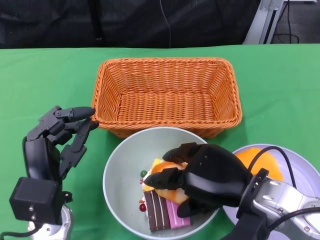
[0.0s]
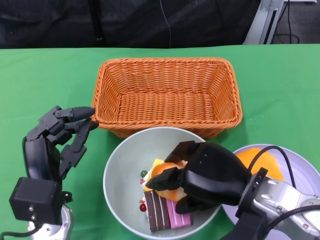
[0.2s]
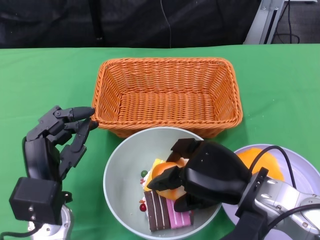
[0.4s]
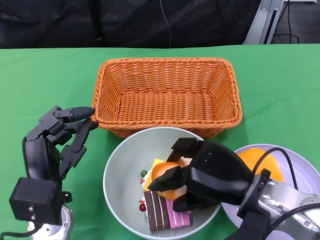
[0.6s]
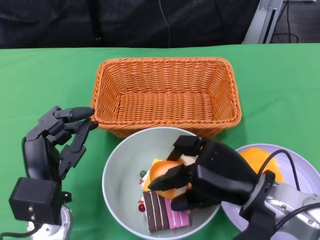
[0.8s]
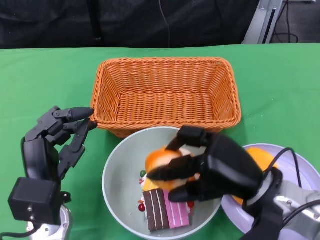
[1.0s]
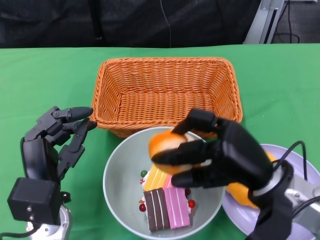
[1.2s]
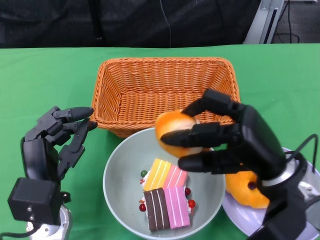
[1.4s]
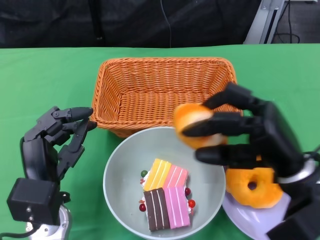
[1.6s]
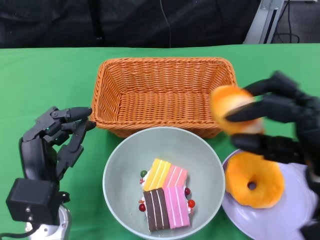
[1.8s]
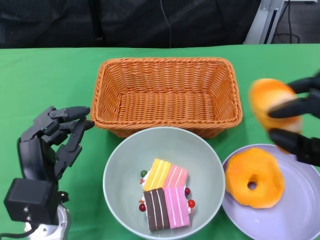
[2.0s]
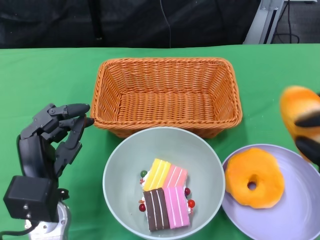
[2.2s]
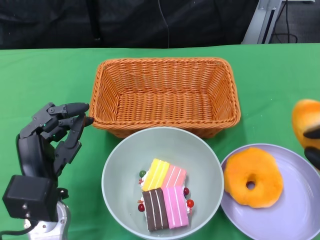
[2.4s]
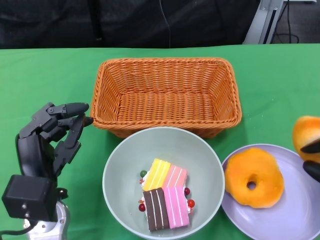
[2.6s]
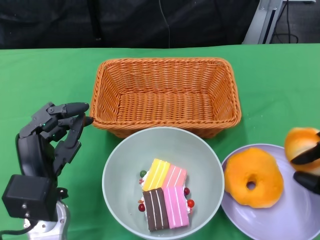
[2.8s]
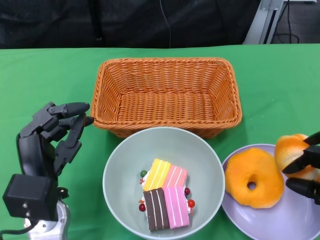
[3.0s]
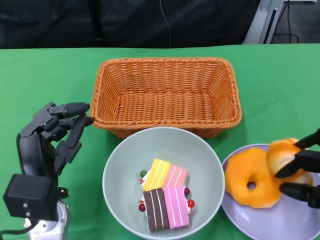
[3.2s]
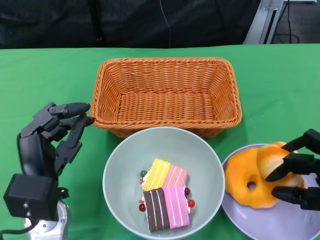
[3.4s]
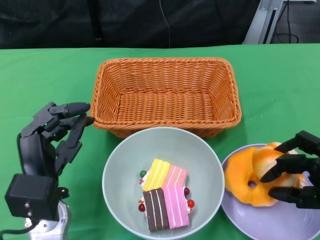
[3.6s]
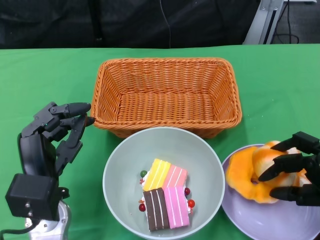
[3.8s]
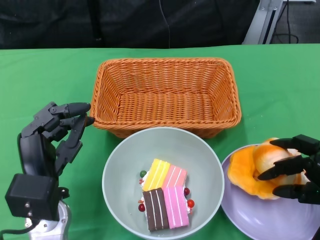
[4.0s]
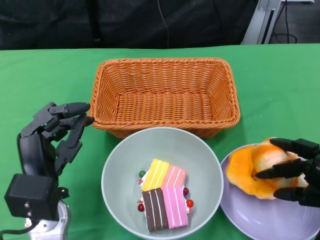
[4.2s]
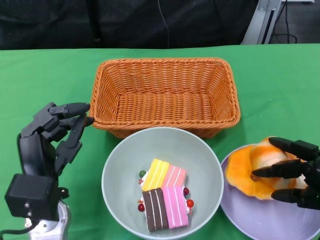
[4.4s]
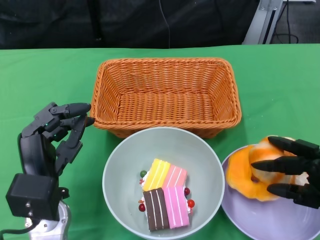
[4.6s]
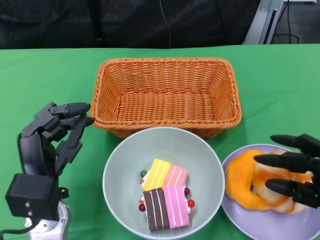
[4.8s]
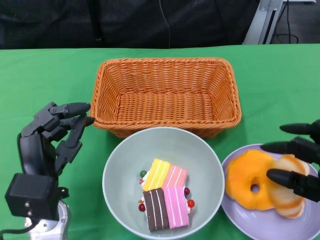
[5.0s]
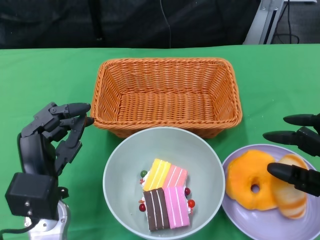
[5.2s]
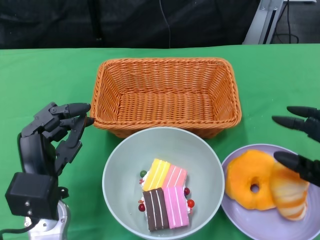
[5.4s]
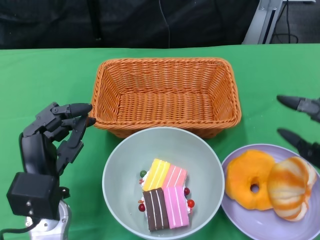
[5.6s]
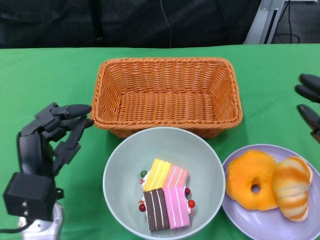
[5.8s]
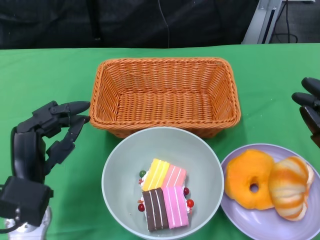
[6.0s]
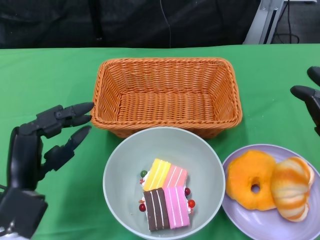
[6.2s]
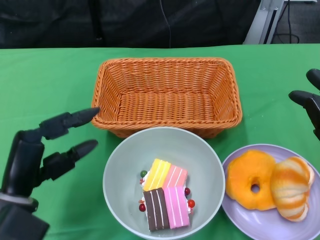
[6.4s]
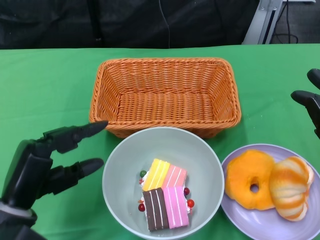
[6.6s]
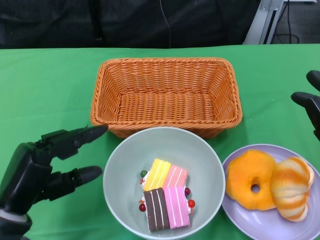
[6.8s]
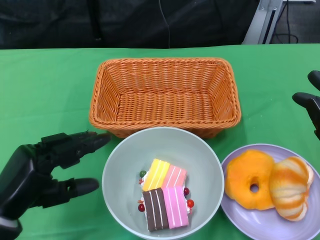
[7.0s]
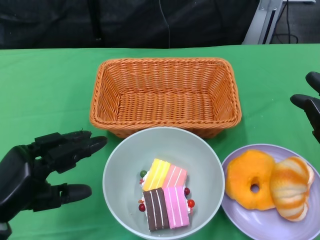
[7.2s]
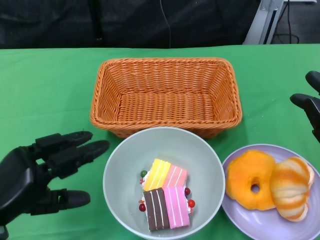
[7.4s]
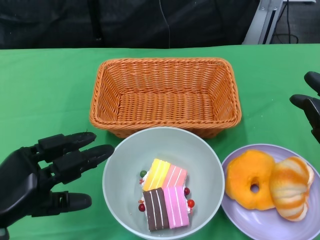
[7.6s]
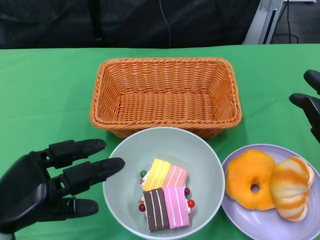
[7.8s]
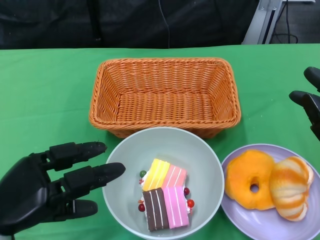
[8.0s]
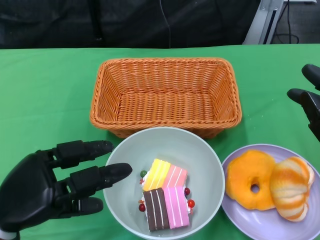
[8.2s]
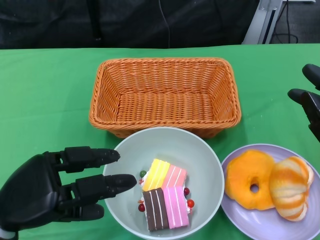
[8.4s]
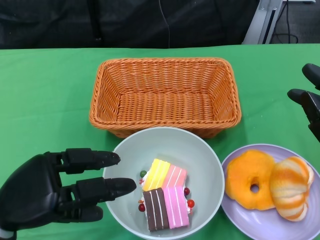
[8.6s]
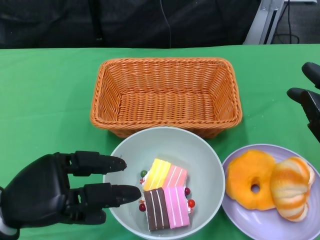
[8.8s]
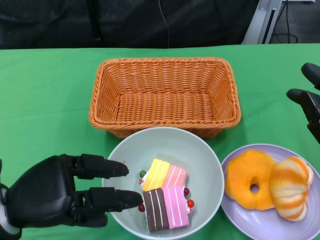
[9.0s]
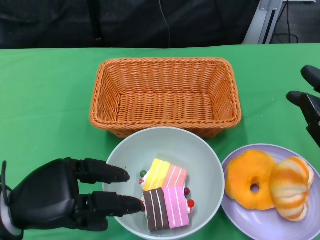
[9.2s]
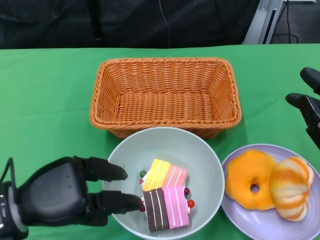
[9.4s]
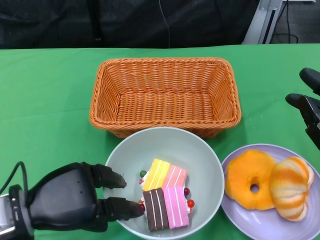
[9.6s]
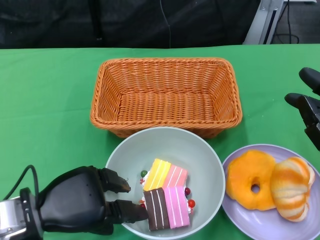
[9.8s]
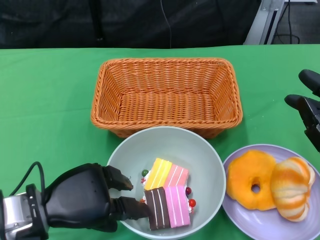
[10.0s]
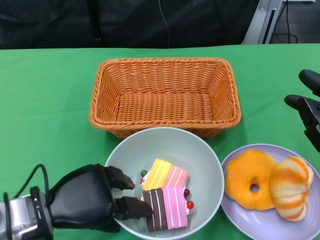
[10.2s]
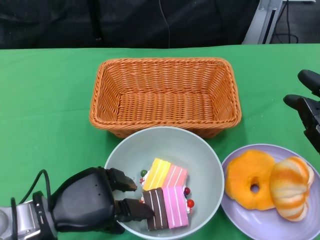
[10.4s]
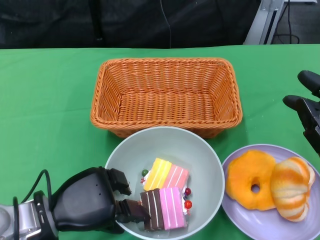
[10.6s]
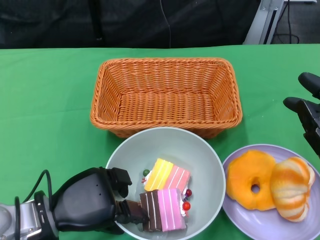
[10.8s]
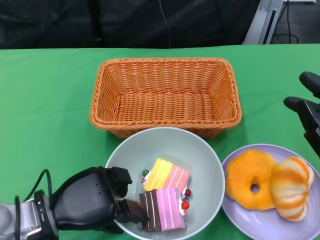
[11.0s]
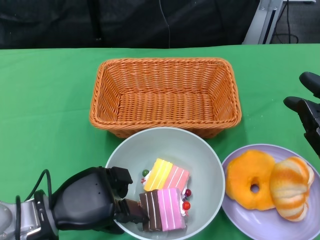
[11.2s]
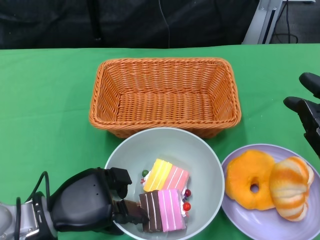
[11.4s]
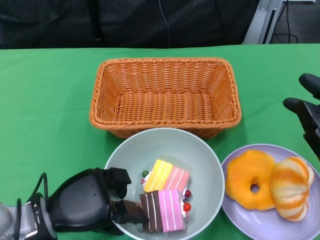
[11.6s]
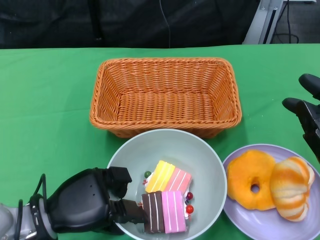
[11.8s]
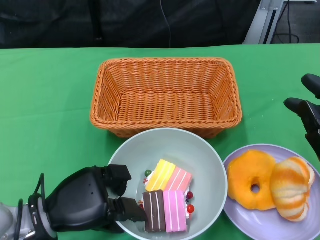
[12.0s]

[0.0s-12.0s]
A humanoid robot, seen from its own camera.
Step, 0.0s to 6.4s: Pick up the bread with the right gripper and place it on the plate.
Step, 6.6s to 11.8s: Grasp the bowl with the left gripper.
1.6s to 3.0s: The right hand shifts approximately 15 cm to the right and downward.
6.0s to 7.6s: The left hand moves to the left, some 5 cm.
9.0s to 10.4s: The left hand shifts by roughly 5 cm.
10.4s to 12.0s: The hands stay close to where they were, moving slightly.

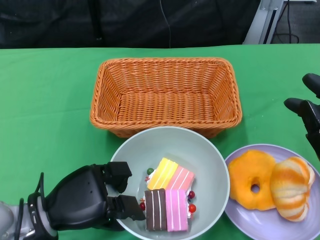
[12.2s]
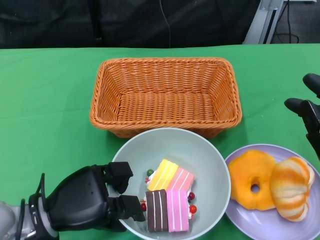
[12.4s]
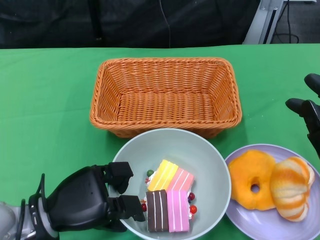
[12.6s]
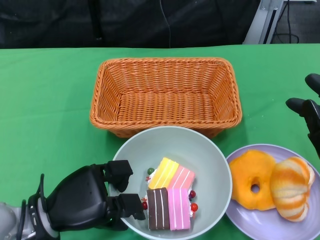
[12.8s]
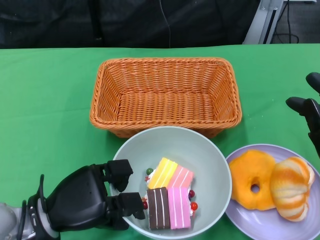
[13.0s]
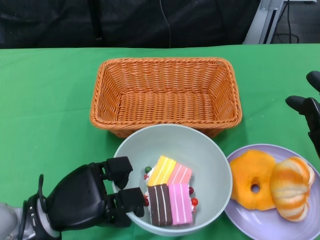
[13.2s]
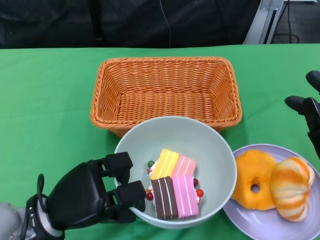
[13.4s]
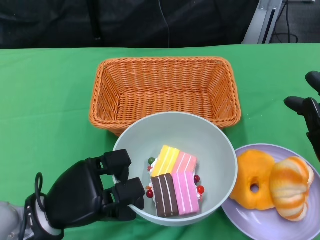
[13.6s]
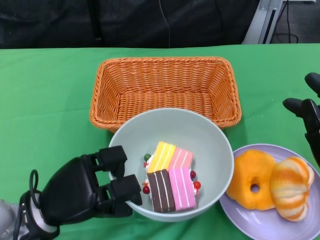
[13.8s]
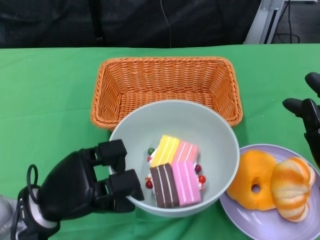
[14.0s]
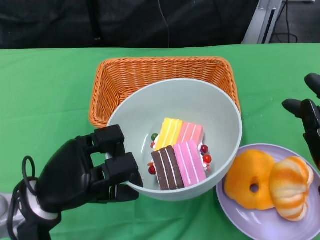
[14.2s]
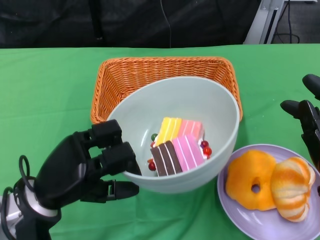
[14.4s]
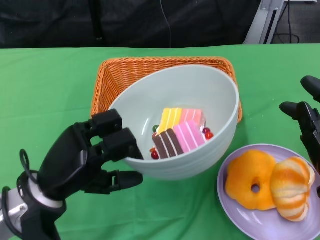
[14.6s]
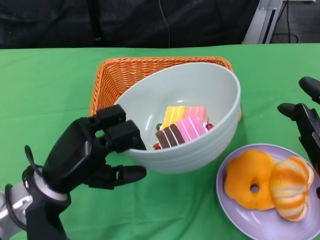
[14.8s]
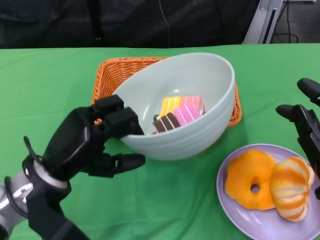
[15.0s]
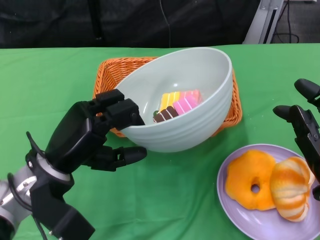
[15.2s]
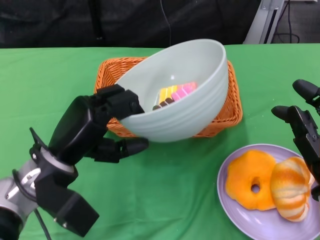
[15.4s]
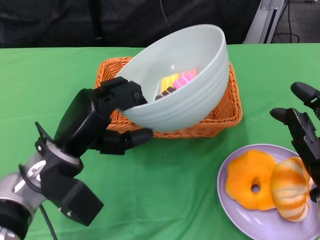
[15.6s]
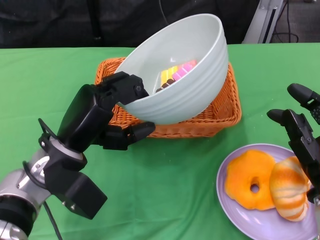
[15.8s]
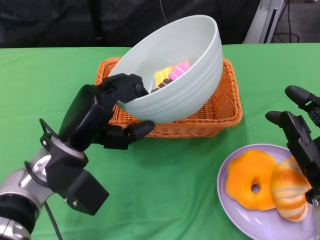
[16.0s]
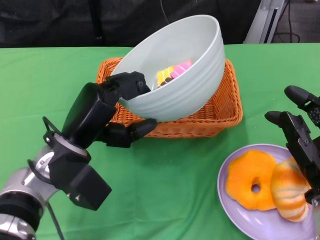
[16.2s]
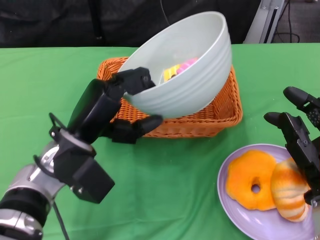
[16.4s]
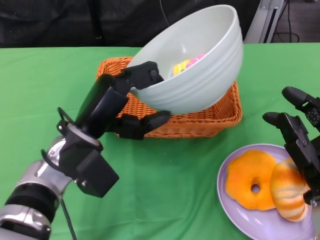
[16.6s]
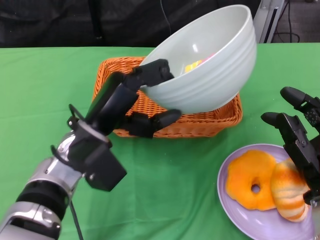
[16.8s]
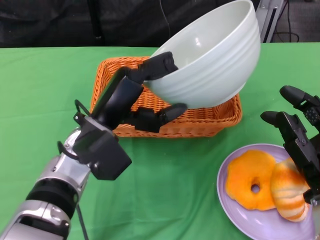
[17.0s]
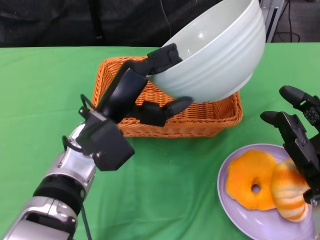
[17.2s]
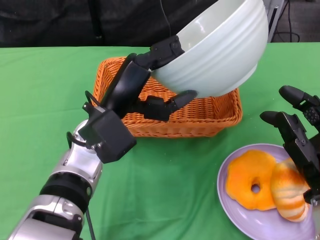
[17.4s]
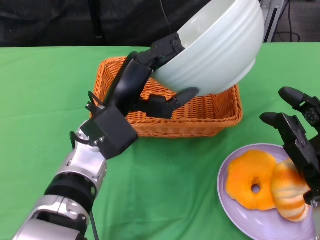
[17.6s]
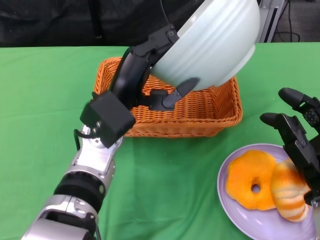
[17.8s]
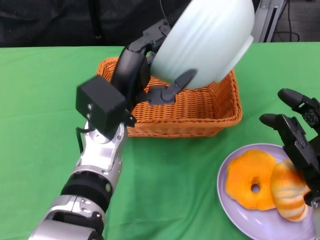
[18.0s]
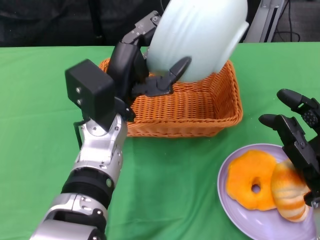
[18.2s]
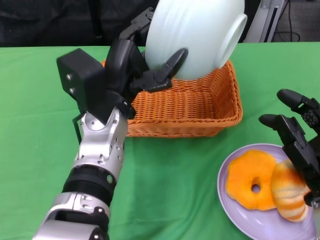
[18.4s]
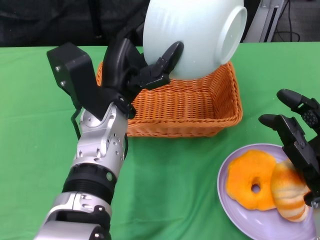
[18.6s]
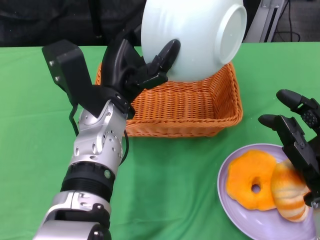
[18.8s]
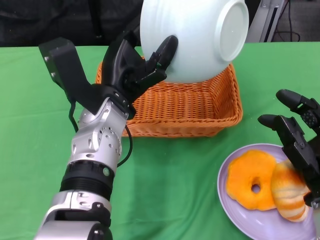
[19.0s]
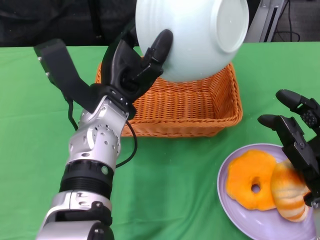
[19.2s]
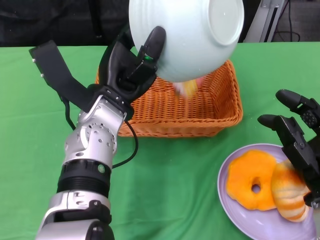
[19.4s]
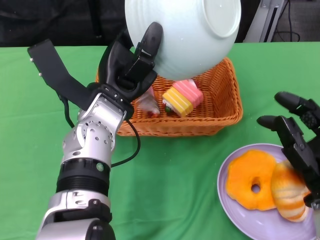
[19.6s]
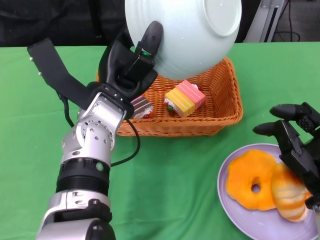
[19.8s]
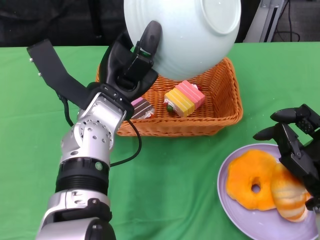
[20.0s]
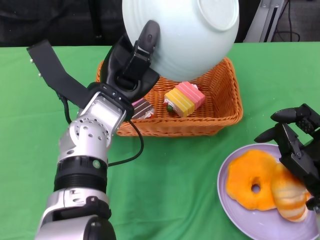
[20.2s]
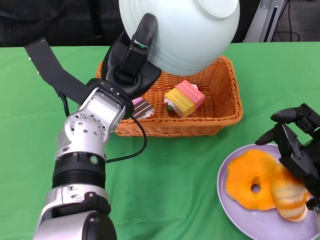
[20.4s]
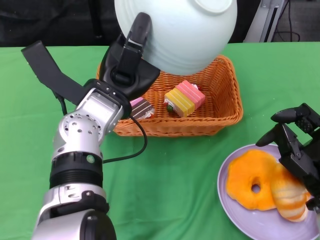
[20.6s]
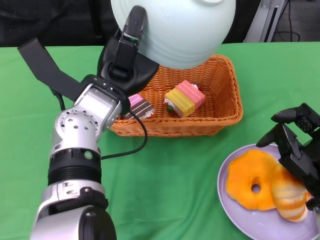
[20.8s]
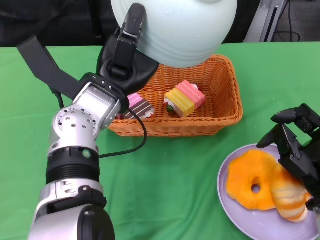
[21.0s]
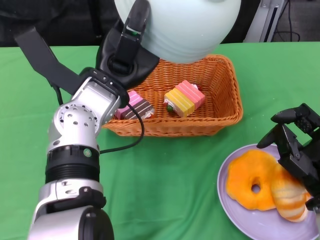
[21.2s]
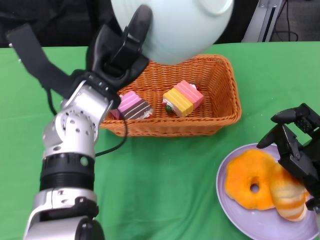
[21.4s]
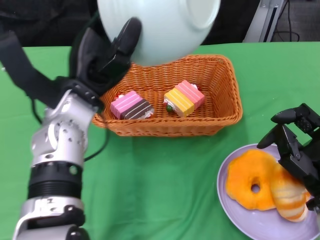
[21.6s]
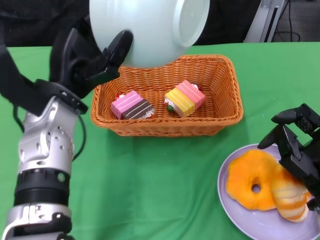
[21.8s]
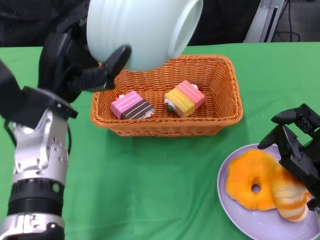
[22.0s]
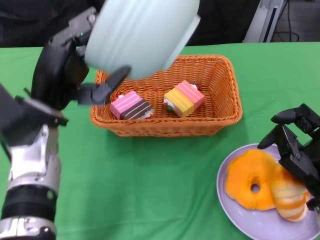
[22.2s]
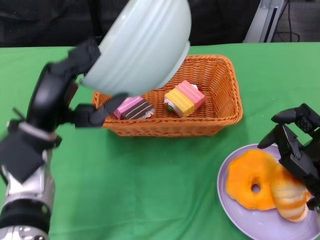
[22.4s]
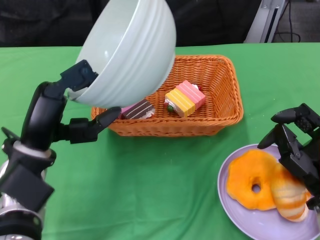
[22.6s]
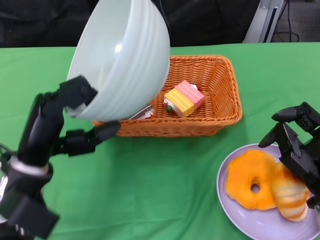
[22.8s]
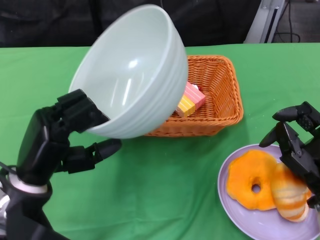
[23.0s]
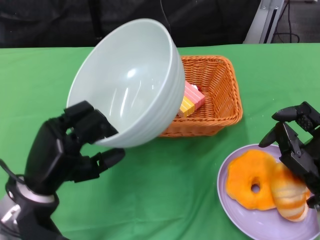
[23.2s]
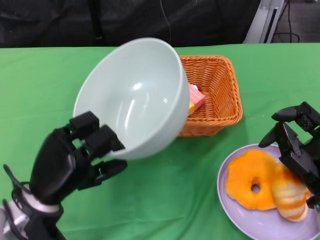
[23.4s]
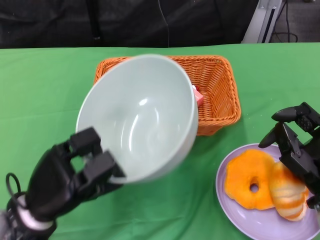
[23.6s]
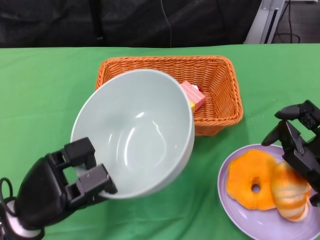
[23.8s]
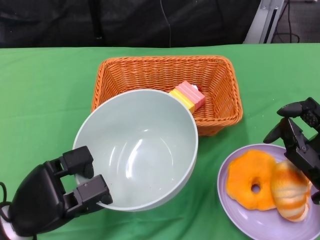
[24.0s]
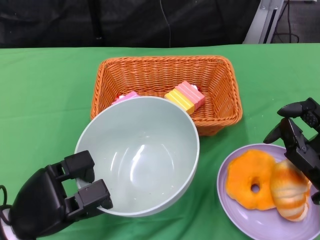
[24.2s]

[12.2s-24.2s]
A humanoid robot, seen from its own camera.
Step, 12.2s to 21.0s: Pour the cake into the basket with the left gripper.
12.2s to 13.8s: There are only small adjustments of the hands.
13.8s to 15.2s: The left hand heads upward, covering about 5 cm.
15.2s to 16.6s: The left hand ends up some 5 cm from where it was.
16.6s to 18.2s: The left hand shifts by approximately 5 cm.
21.2s to 22.6s: The left hand goes some 15 cm to the left, downward and backward.
22.6s to 24.2s: The left hand goes roughly 10 cm downward and backward.
